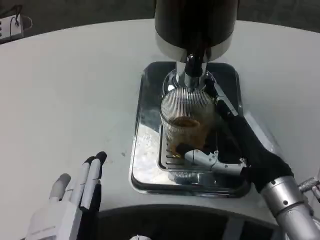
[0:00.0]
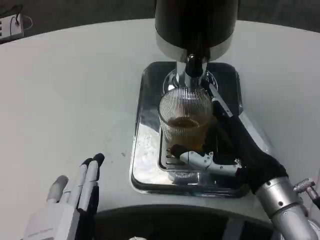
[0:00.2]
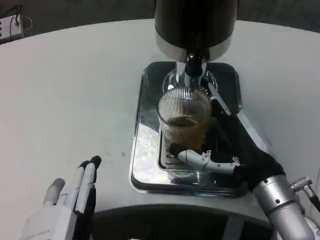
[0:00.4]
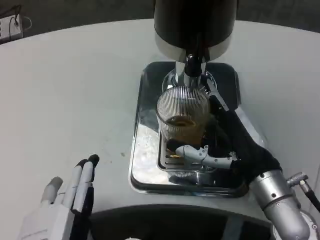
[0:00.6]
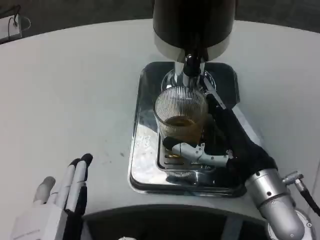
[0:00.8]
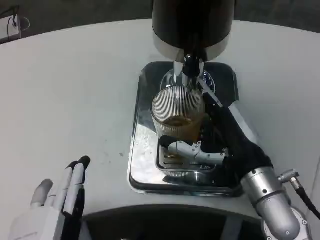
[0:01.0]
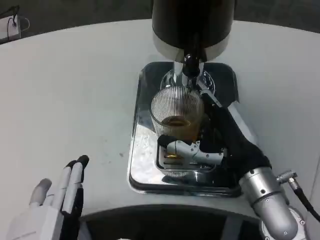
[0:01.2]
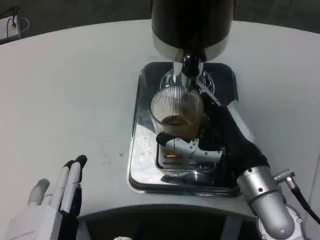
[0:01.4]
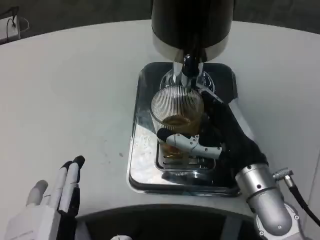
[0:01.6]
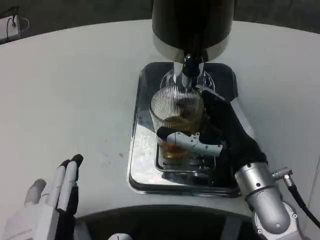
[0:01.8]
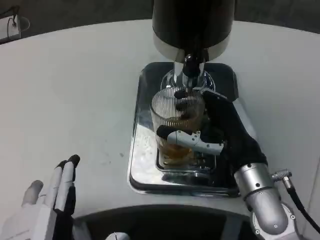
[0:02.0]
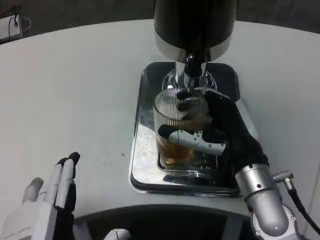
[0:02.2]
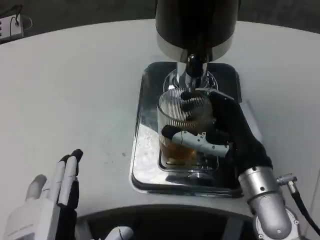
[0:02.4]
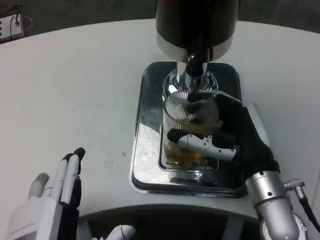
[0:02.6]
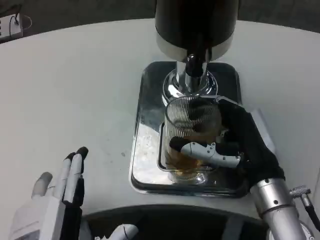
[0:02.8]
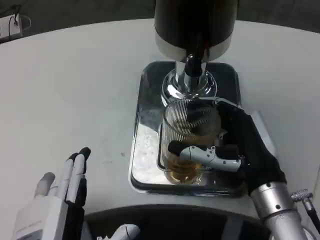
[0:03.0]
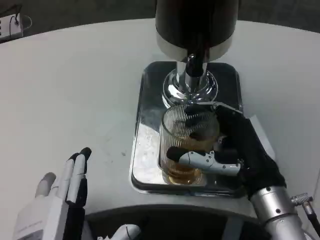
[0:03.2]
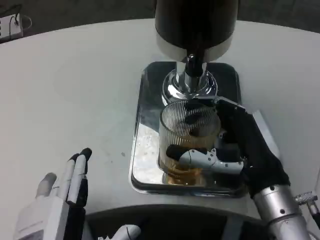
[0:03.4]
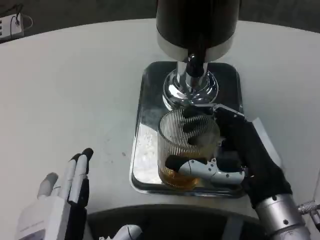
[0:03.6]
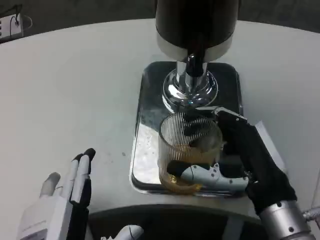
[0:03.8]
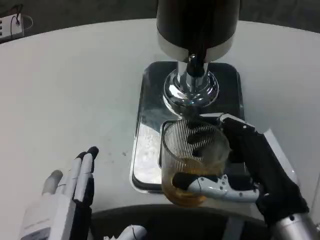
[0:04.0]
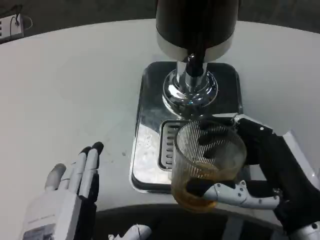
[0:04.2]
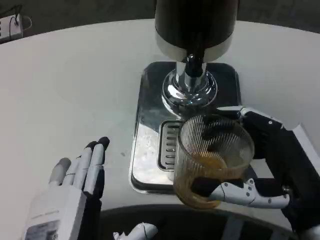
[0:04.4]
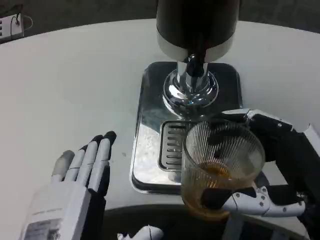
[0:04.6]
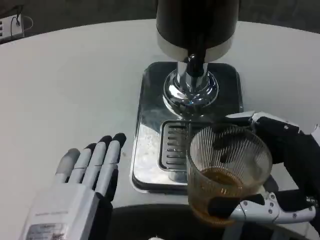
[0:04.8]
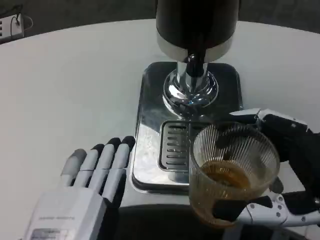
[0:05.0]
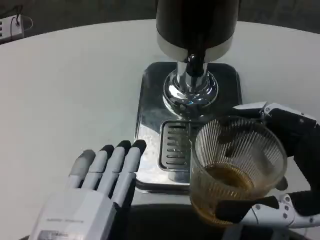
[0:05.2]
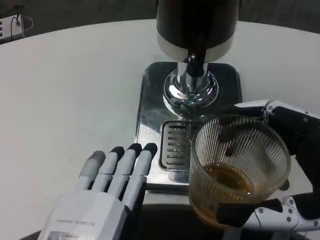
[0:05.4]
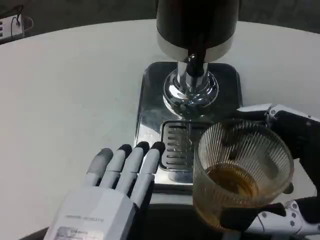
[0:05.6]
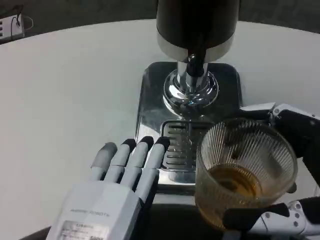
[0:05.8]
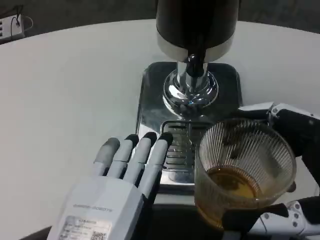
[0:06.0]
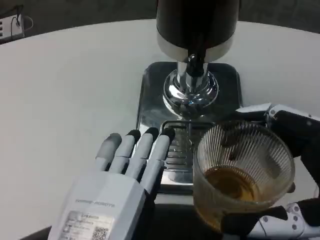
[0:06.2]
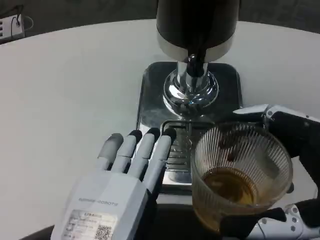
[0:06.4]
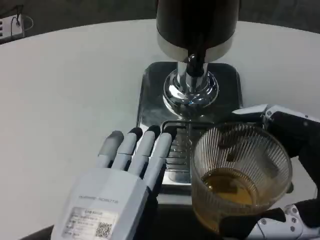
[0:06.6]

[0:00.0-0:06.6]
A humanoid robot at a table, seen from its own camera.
Task of the whole recording: Grasp the cup under the faucet to collect the drink, then remove the cup.
0:03.2 to 0:05.0: The right hand heads backward and to the right, covering about 10 cm.
0:05.0 to 0:06.6: The hands stay close to where they were, moving slightly.

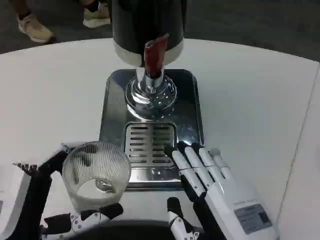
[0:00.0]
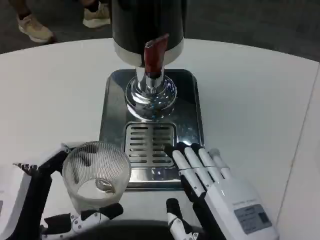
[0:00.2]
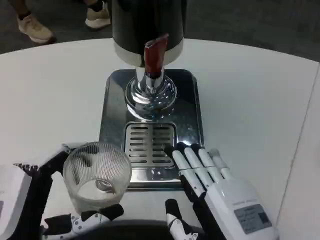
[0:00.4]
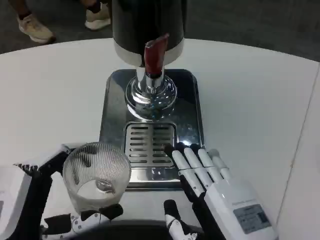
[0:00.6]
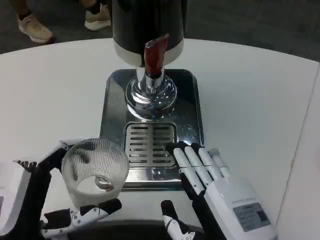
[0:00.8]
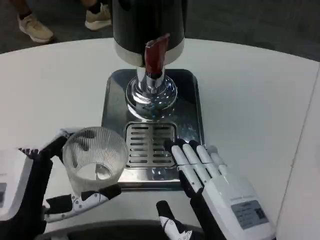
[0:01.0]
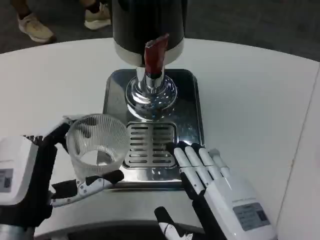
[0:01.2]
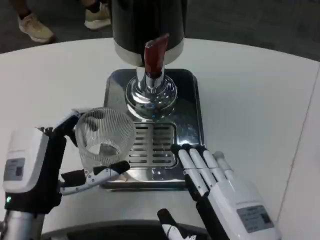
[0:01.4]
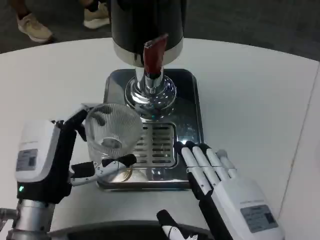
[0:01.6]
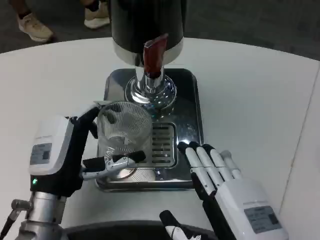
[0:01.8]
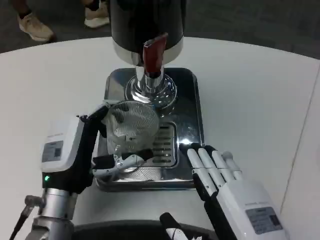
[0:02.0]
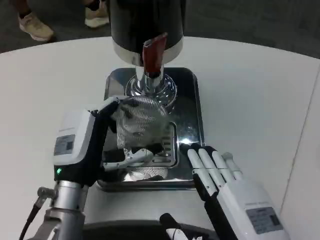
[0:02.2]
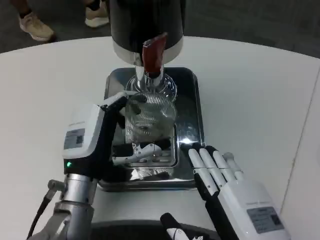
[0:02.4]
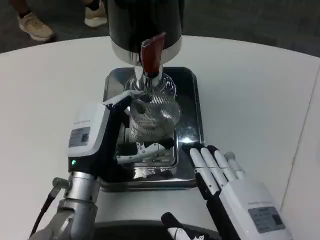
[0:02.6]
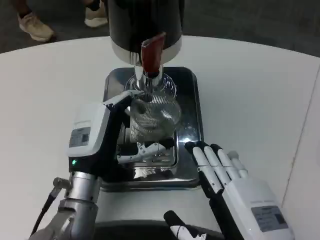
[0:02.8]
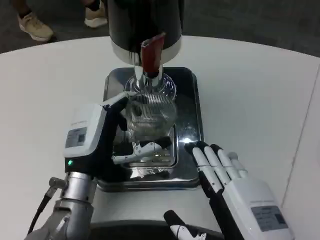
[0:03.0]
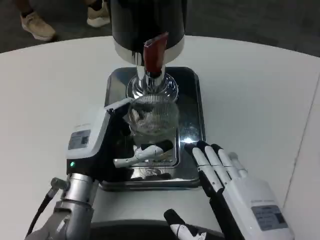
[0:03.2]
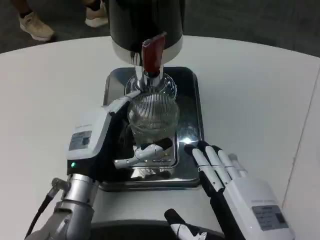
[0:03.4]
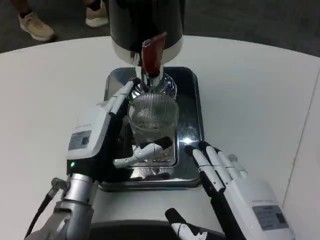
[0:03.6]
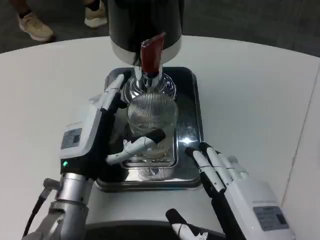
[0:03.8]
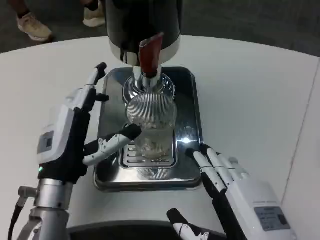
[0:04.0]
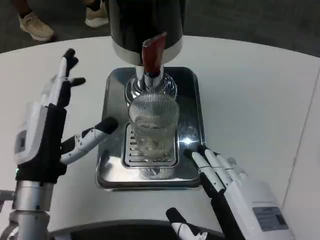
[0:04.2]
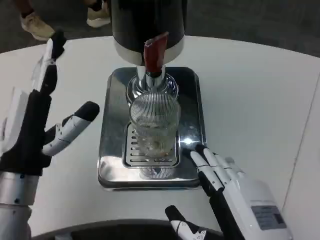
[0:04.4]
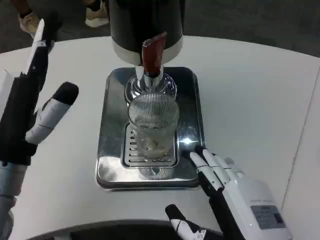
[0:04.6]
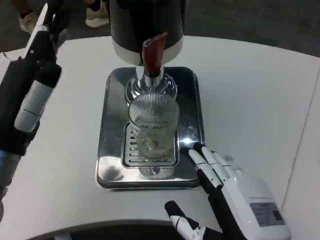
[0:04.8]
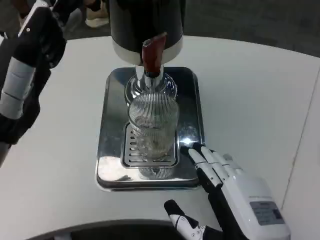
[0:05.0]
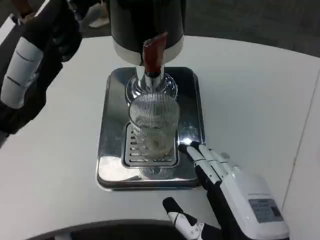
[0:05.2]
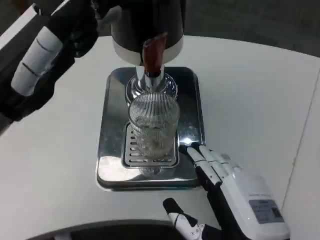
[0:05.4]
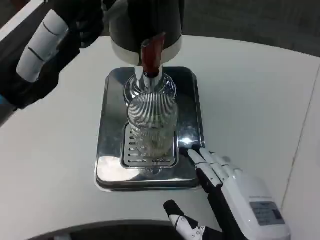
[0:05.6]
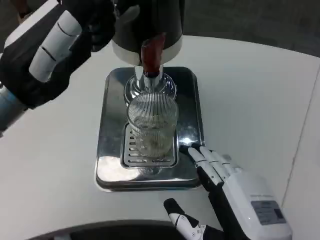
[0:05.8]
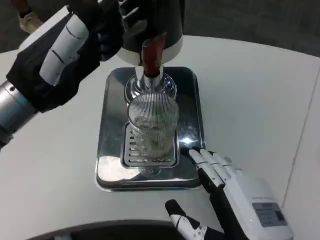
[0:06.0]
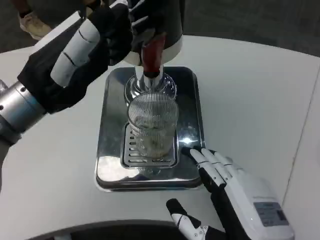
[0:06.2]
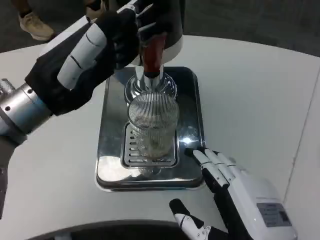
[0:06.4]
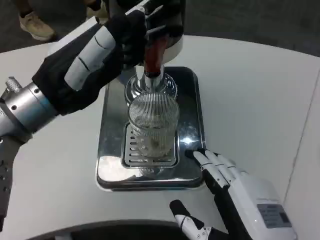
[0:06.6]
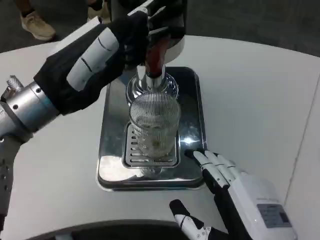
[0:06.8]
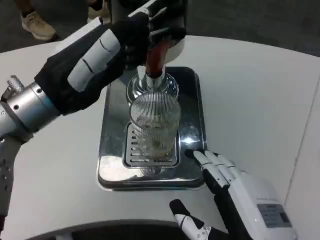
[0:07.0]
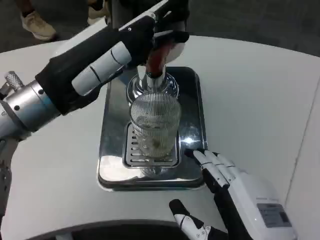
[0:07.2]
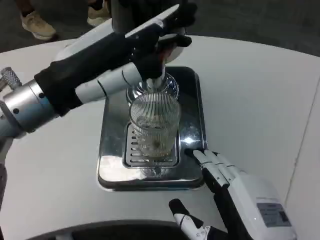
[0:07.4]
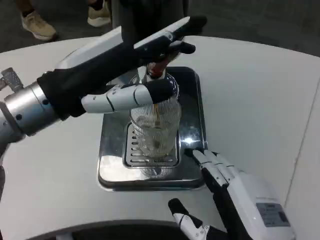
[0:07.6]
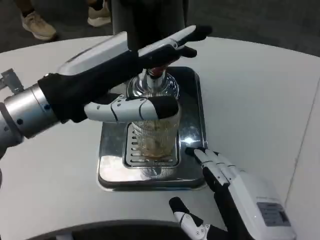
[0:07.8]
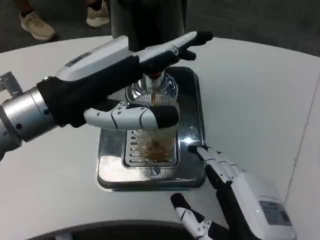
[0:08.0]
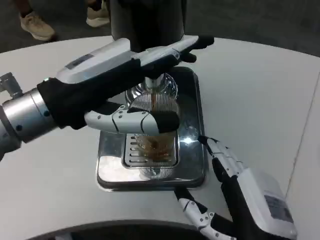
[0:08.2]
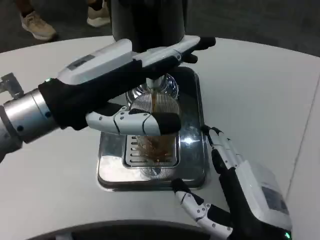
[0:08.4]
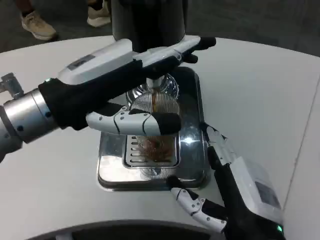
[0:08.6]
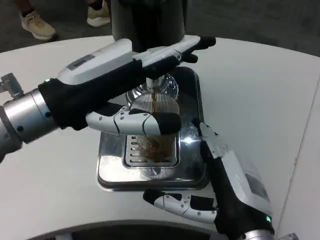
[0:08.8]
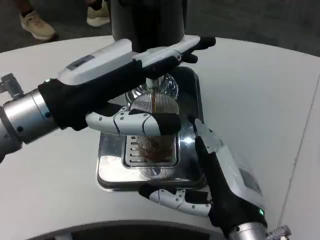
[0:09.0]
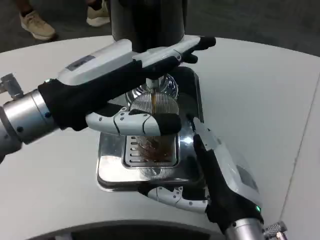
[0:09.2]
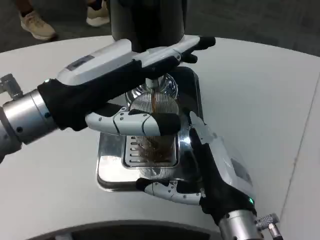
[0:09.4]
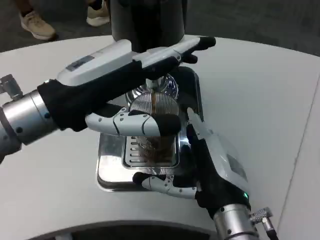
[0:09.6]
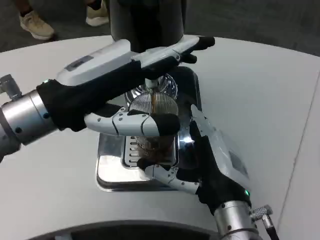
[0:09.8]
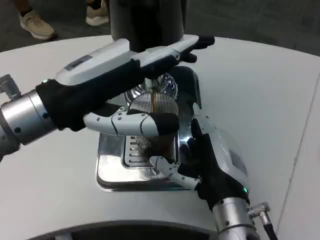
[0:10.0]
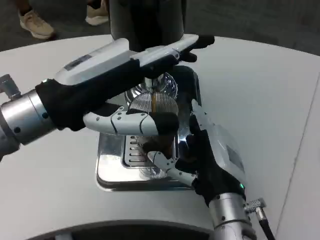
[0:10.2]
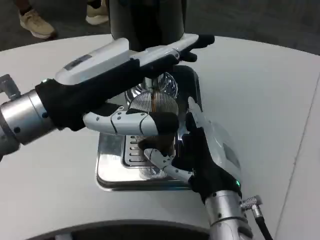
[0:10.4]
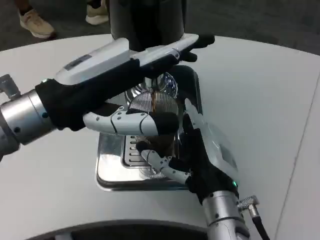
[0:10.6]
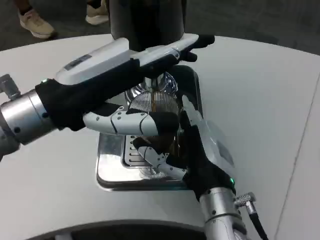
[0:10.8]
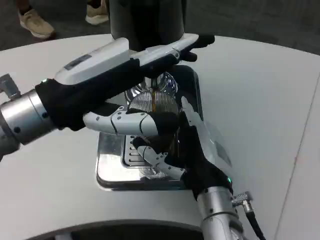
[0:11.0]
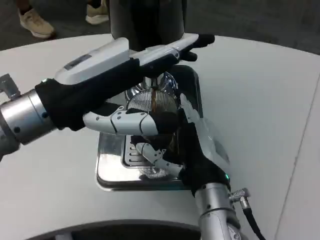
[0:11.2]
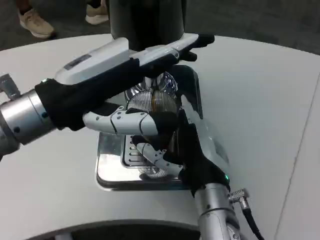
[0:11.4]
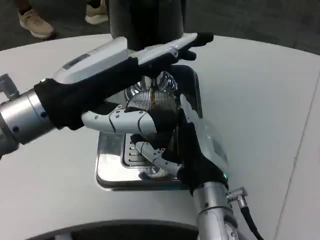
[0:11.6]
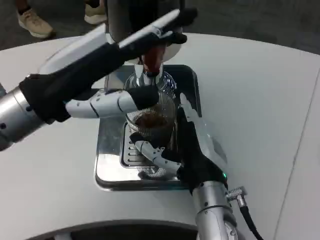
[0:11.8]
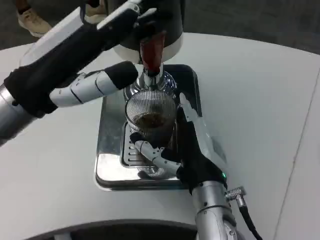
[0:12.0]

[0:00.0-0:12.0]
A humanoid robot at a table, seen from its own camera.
Task of the whole recording: Grasp the cup under the faucet to collect the drink, then remove the cup.
0:00.0 to 0:01.6: The left hand is displaced forward by approximately 10 cm.
0:01.6 to 0:03.0: The left hand shifts by some 5 cm.
0:03.0 to 0:04.4: The left hand travels to the left and upward by roughly 10 cm.
0:04.4 to 0:06.0: The left hand shifts approximately 15 cm upward.
0:07.6 to 0:09.0: The right hand travels forward by approximately 5 cm.
0:09.0 to 0:10.4: The right hand moves roughly 5 cm.

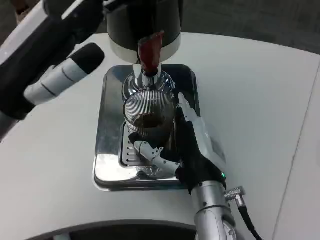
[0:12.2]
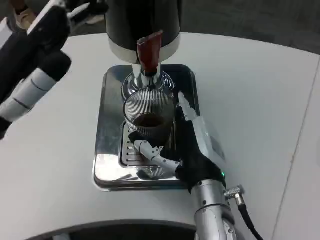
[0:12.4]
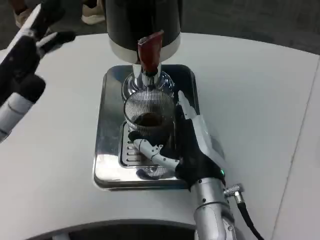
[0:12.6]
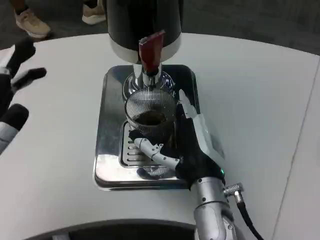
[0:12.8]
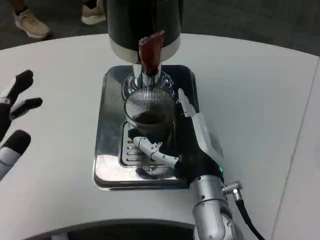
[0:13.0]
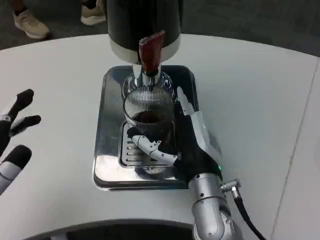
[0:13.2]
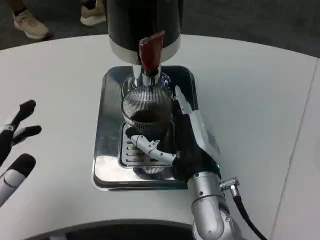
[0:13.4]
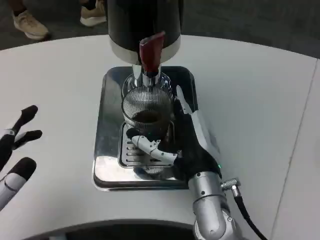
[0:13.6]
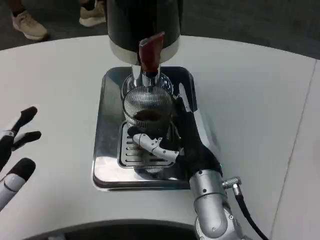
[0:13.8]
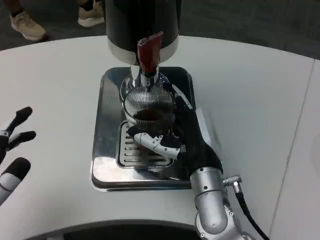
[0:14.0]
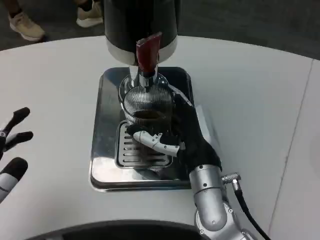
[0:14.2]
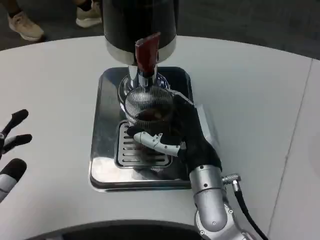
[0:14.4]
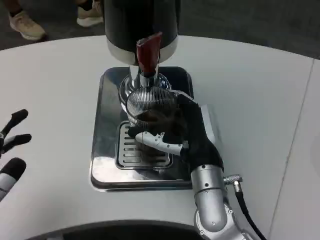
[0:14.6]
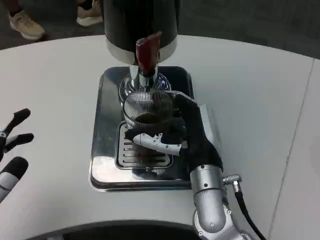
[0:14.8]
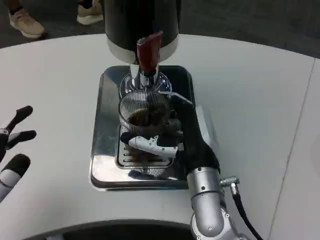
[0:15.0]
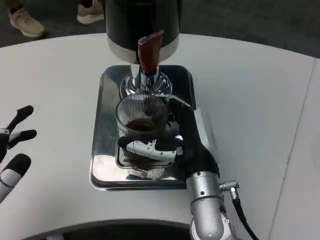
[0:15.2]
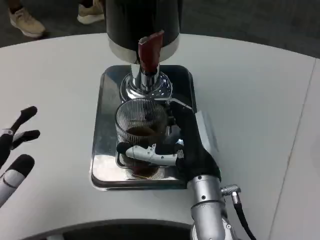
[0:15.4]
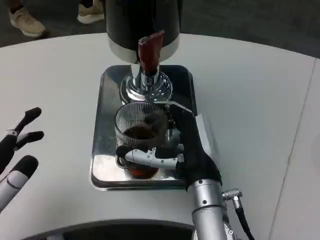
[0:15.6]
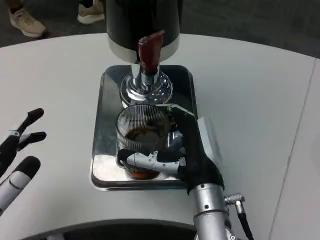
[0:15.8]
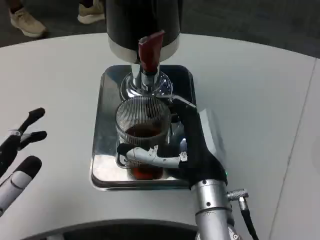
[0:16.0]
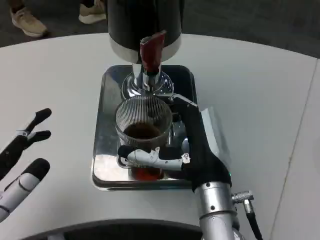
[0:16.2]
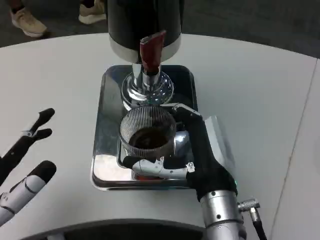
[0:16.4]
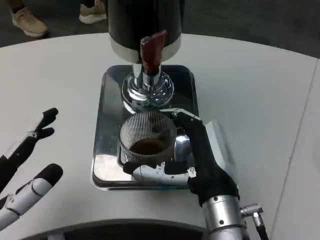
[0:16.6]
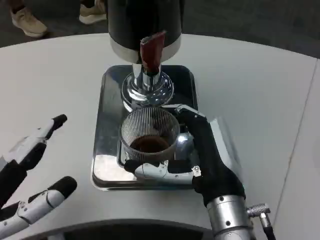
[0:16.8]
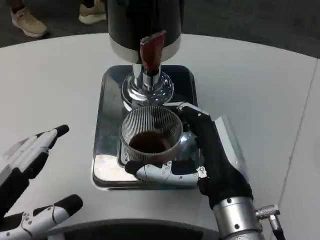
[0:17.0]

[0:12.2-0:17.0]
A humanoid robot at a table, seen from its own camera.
Task of the whole recording: Grasp the cup under the faucet to collect the drink, then remove the cup.
0:12.2 to 0:13.8: The left hand heads backward, downward and to the left, covering approximately 15 cm.
0:13.8 to 0:15.4: The hands make only small movements.
0:15.4 to 0:17.0: The right hand travels backward by about 5 cm.
